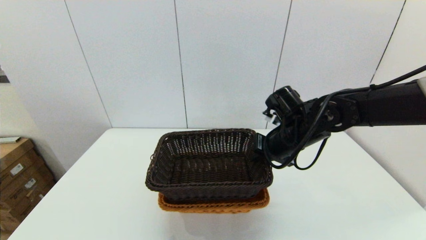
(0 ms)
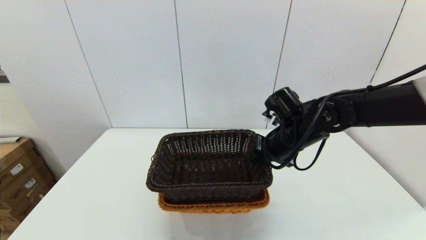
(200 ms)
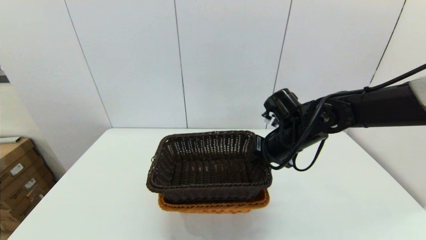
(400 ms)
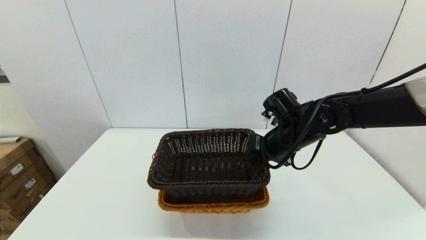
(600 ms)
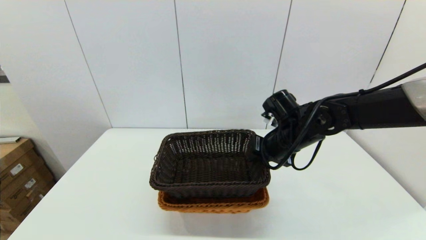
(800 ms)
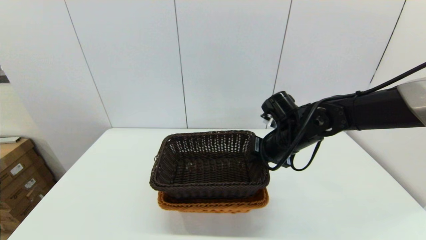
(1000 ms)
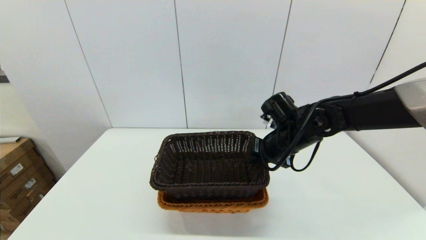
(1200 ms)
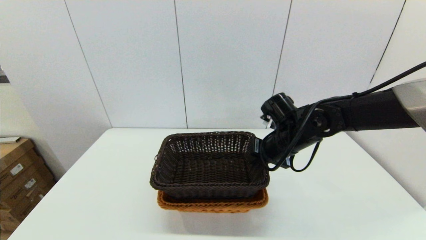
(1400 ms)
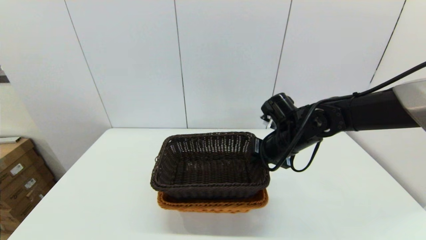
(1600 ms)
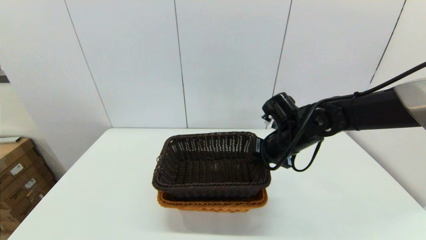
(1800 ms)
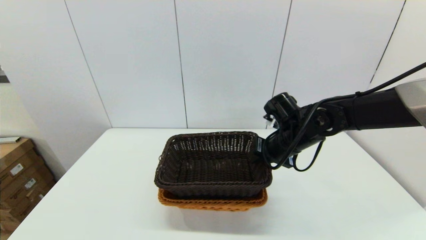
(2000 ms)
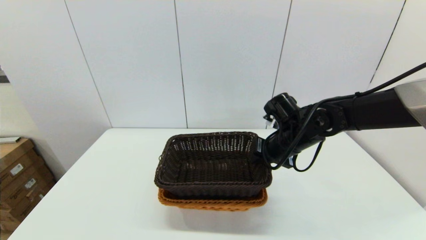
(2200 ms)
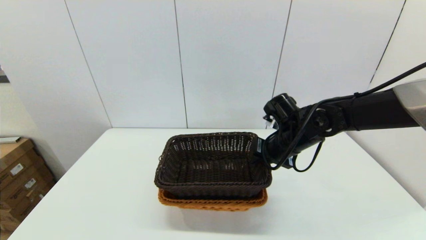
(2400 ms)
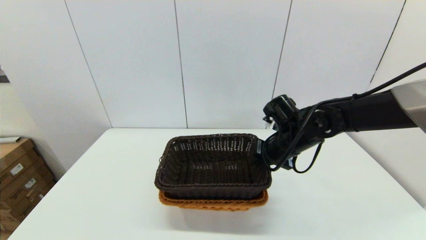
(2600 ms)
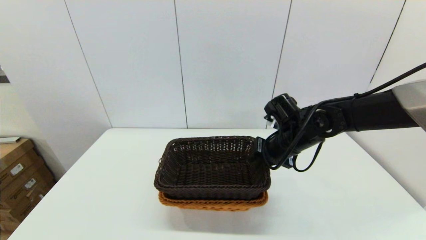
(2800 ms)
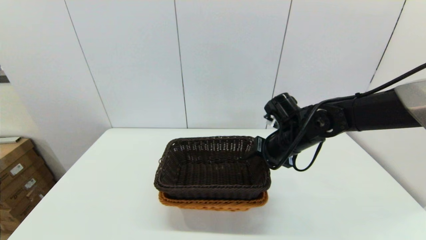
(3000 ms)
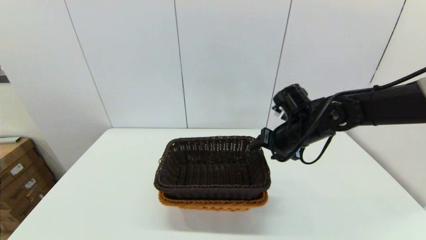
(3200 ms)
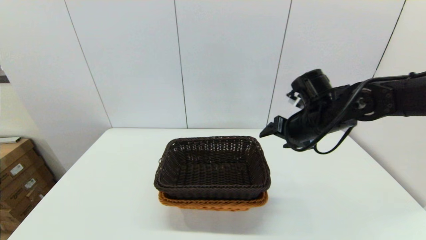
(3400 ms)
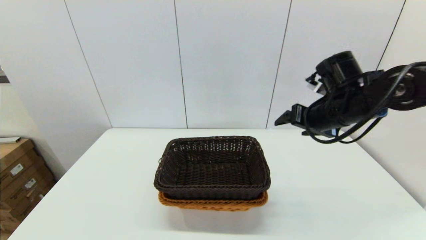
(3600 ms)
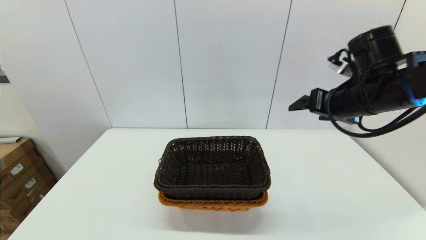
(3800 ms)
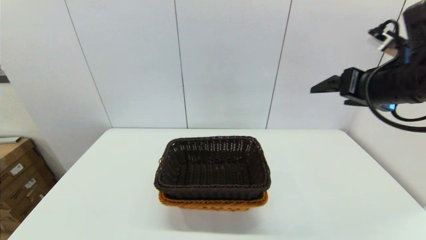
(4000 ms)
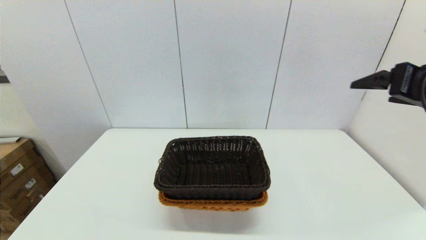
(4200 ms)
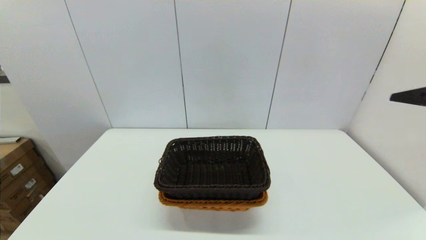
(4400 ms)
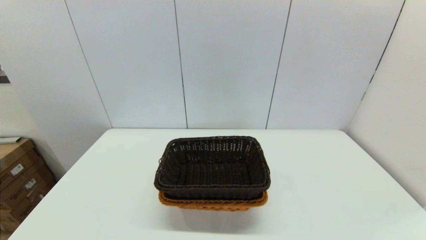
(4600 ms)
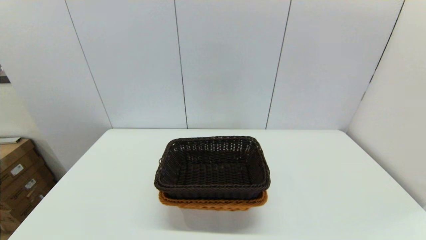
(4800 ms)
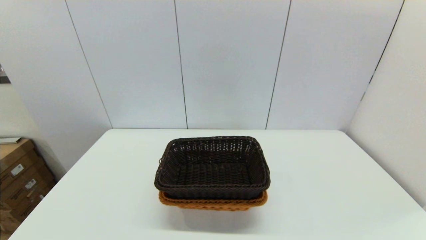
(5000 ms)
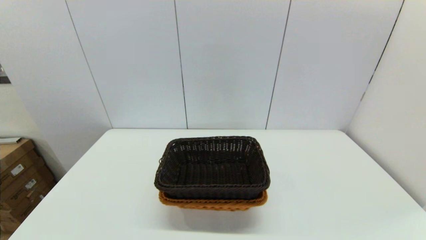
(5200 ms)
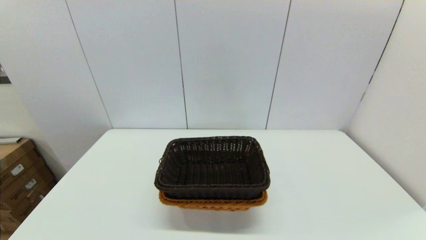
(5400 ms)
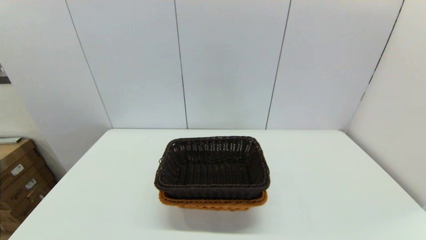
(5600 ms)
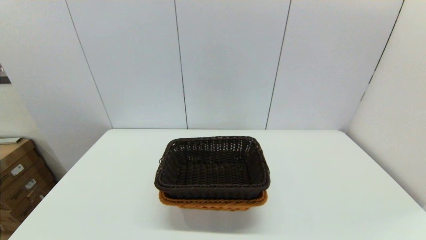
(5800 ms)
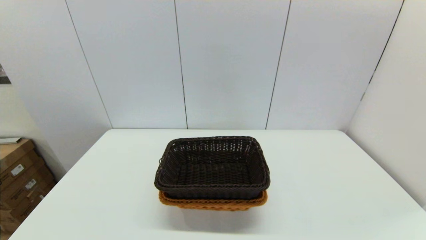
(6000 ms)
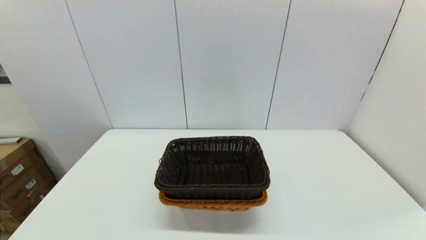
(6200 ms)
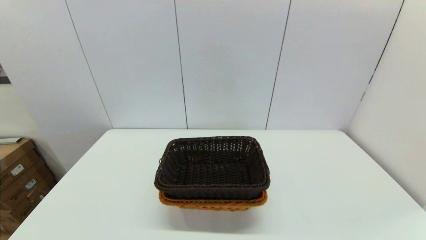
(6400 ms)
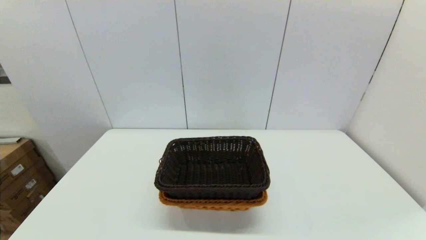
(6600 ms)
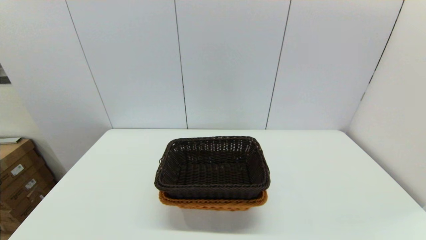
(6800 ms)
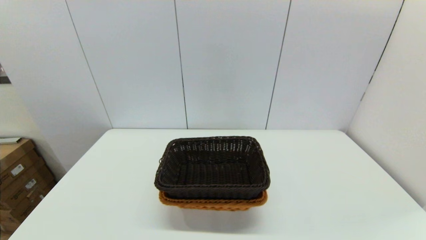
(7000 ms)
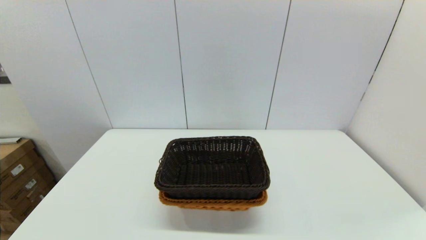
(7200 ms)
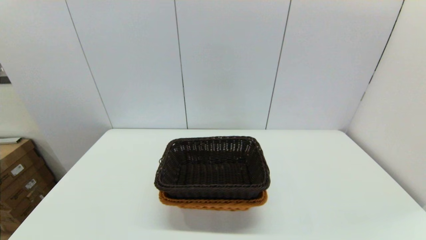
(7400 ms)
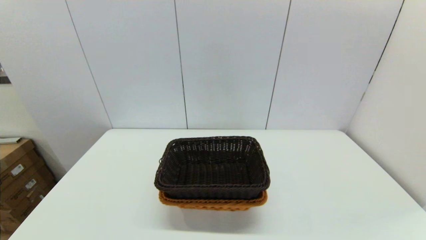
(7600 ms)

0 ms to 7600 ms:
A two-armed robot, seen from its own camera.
Task of the whole recording: stack a basket on top of another basket.
Step, 0 ms to 3000 ms: Place the dark basket into the light color basket with the right gripper.
0 ms to 1600 ms: There are only small adjustments of the grippers.
1600 ms to 3000 ms: The right gripper opens its fingers.
3000 ms to 4600 ms: The right gripper heads backward, to the right and upward, covering approximately 35 cm, and opens.

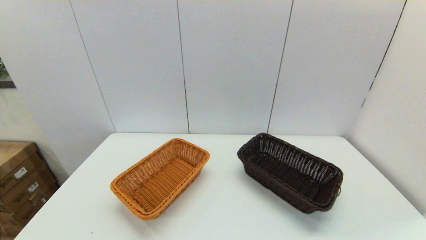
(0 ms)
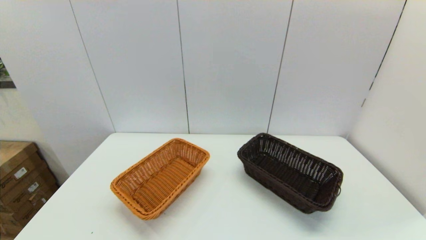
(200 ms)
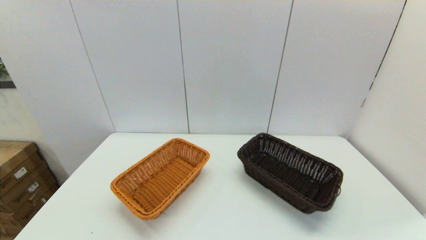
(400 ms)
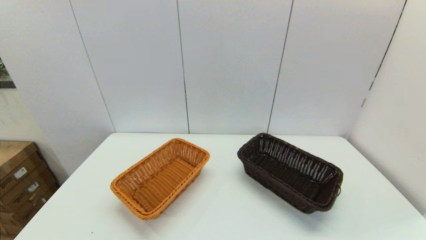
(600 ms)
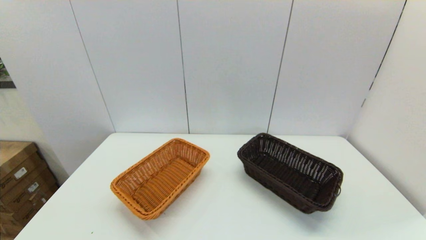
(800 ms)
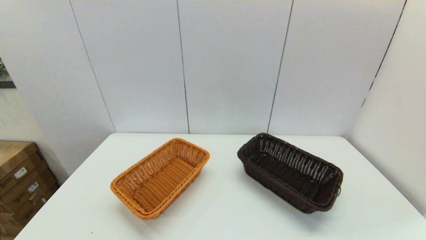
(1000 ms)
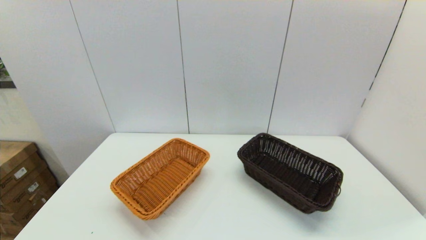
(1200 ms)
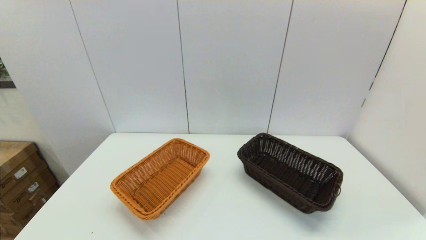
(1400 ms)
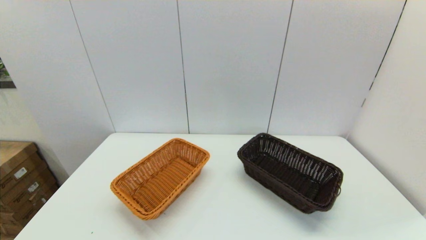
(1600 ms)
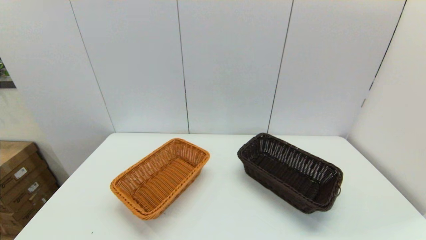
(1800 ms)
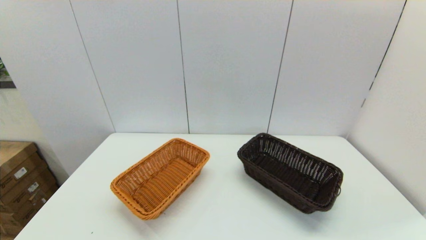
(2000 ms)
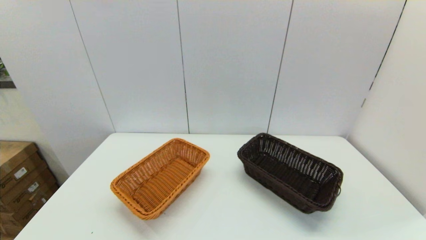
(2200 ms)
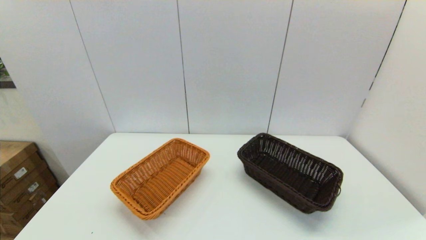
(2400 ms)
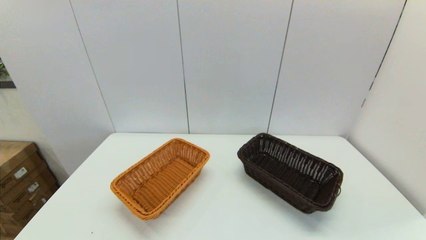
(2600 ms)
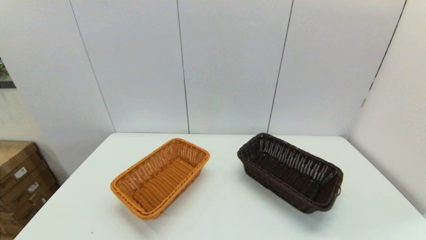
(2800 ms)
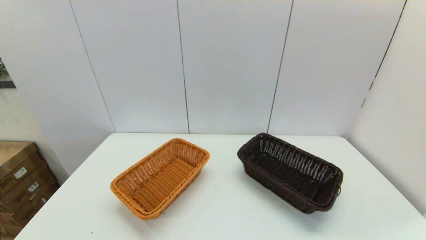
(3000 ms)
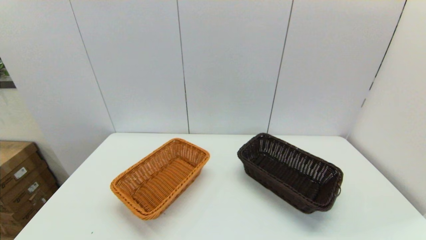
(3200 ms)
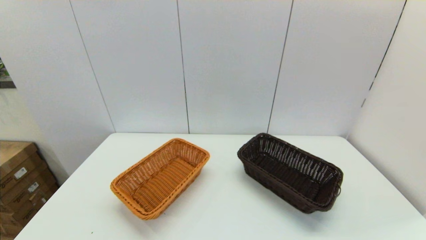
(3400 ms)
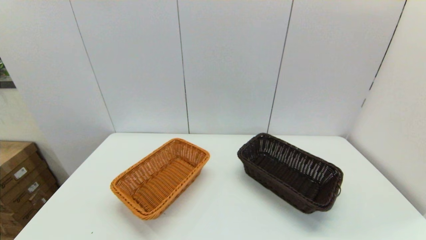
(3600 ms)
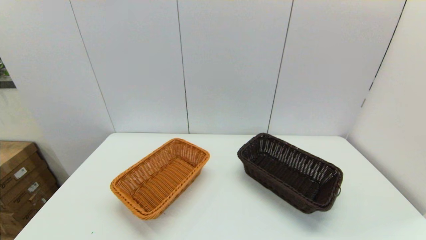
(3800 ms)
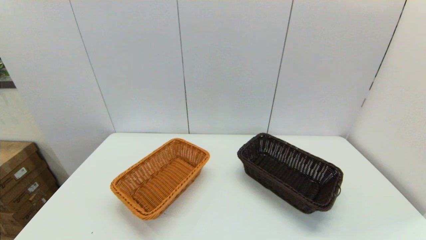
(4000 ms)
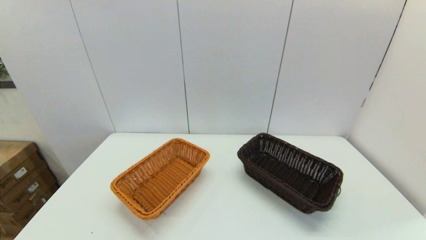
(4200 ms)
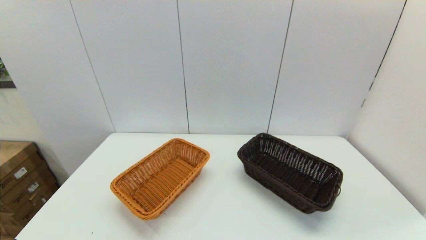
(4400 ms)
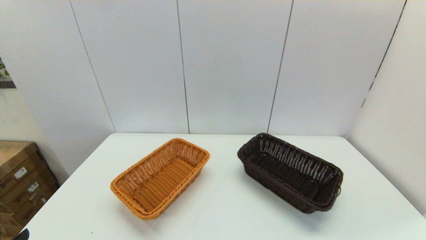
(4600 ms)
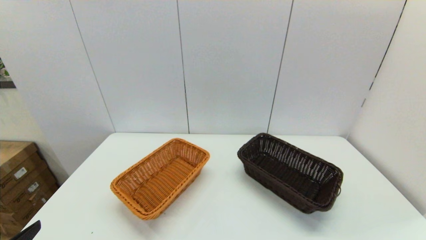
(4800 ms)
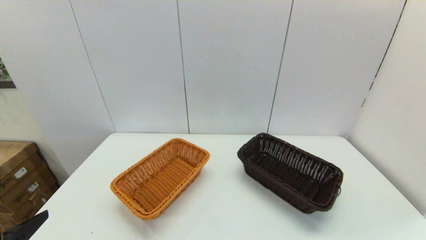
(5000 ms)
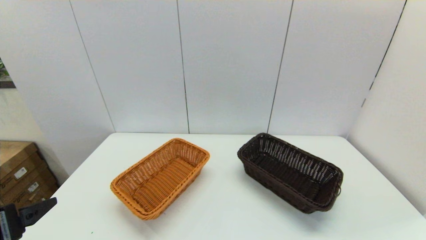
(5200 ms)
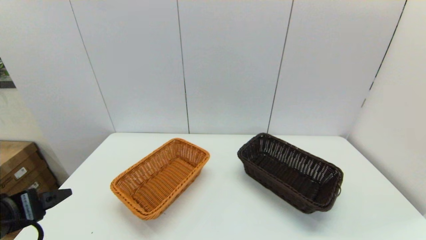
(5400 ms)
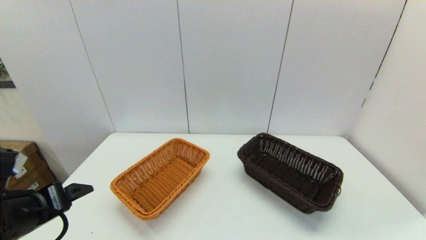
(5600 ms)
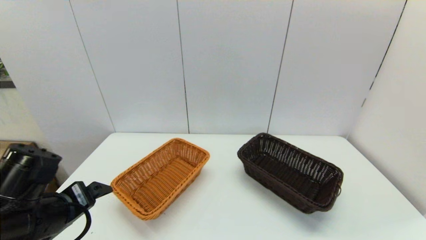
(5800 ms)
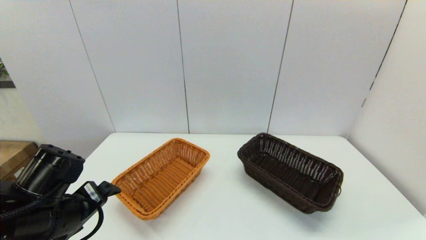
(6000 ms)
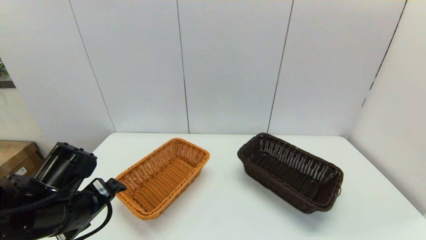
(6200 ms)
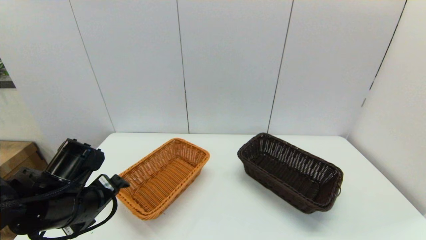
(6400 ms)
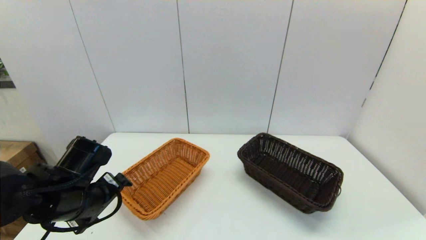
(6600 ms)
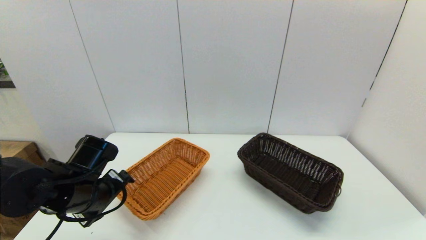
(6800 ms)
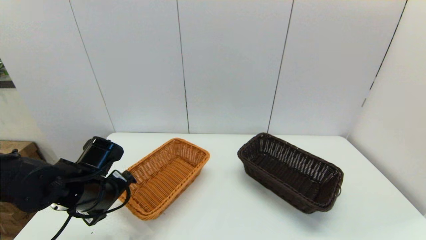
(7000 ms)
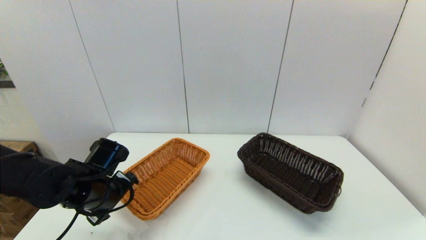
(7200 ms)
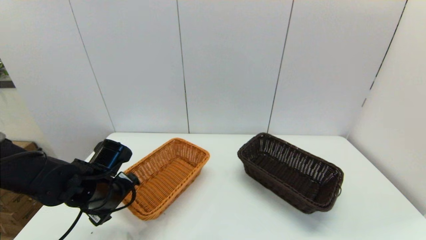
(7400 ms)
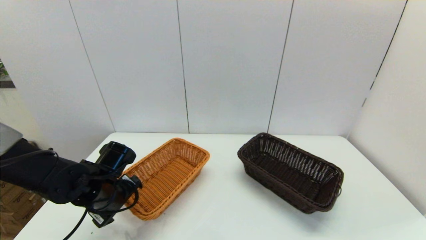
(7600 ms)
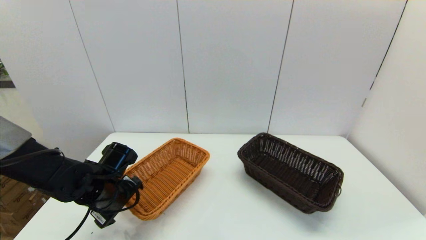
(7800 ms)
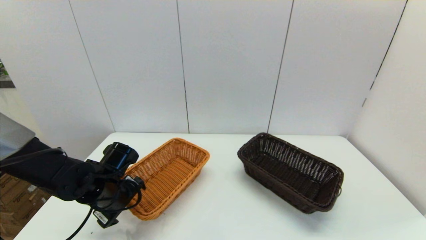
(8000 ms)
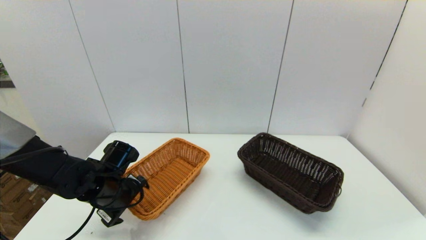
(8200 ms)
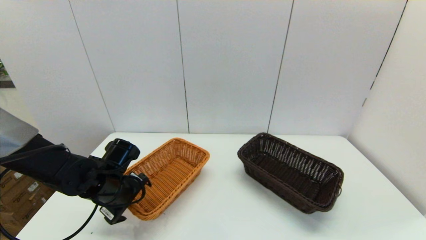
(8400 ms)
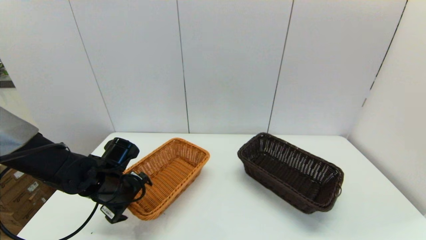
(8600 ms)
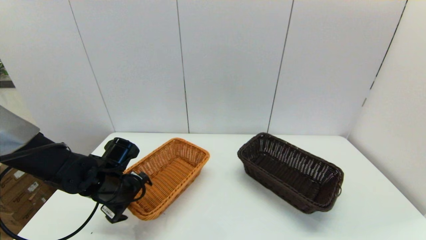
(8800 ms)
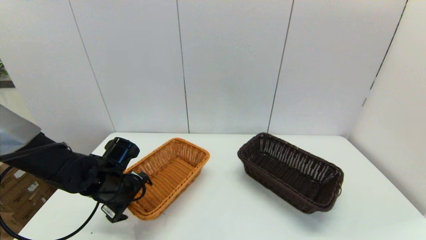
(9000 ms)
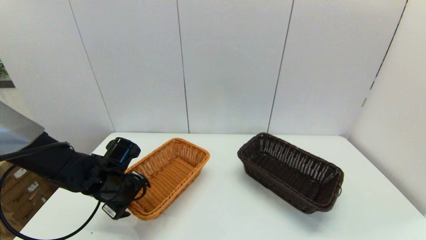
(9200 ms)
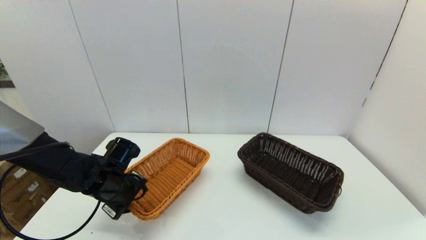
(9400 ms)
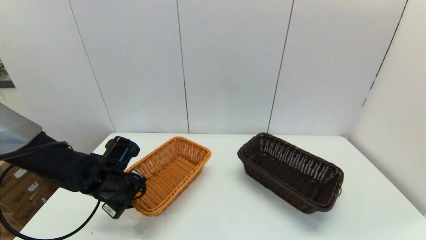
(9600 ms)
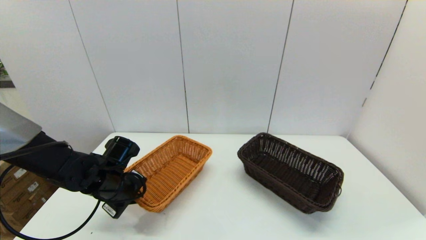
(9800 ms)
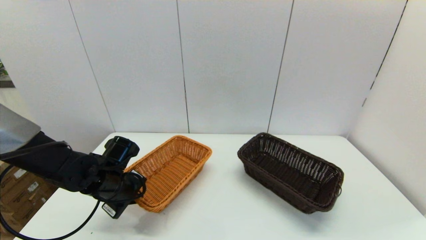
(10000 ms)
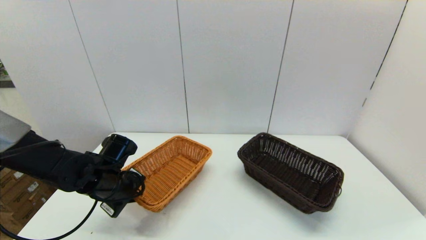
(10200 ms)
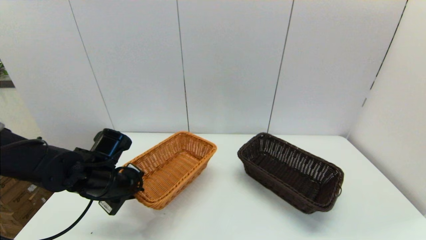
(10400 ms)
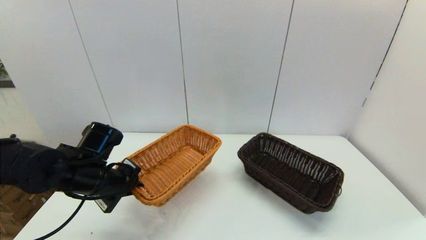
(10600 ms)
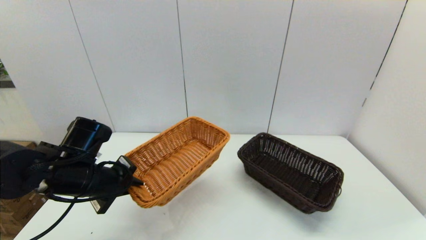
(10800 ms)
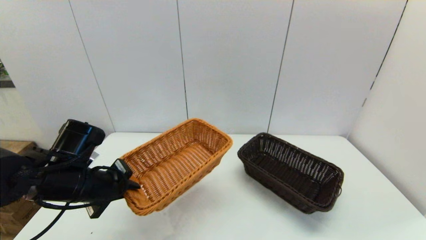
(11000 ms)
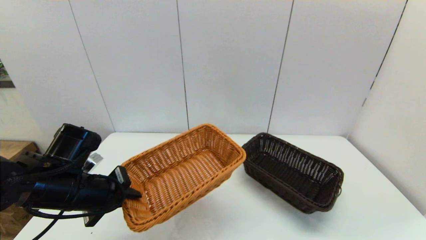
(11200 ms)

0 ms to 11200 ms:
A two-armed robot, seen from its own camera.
Task of the whole recording: stack a basket on top of another basket.
Step, 4400 ms to 10000 ms: Grasp the light basket with the left gripper.
0 ms to 3200 ms: Neither gripper changes place.
4800 ms to 6400 ms: The left gripper heads forward and to the right, covering approximately 20 cm.
6400 ms to 8000 ms: The left gripper goes some 10 cm forward and downward.
8000 ms to 9600 ms: The left gripper closes.
9600 ms to 11200 ms: The left gripper travels upward and backward by about 10 cm.
